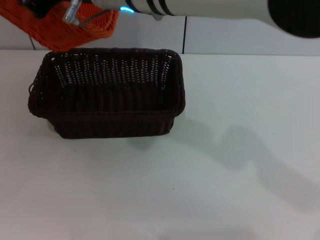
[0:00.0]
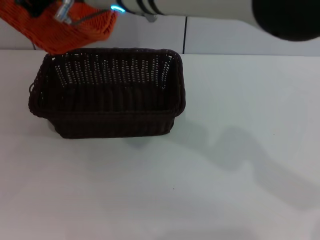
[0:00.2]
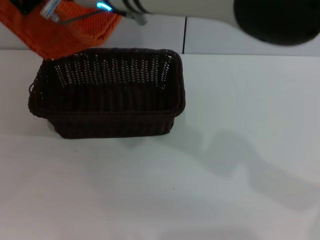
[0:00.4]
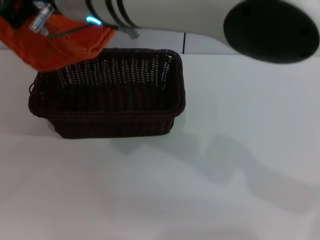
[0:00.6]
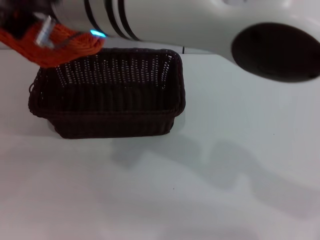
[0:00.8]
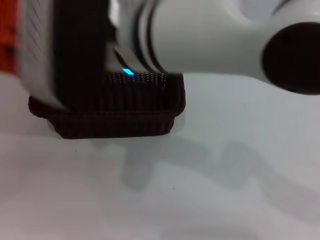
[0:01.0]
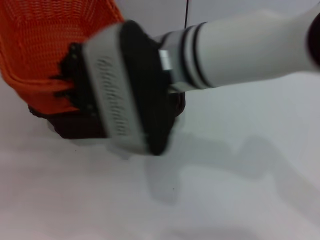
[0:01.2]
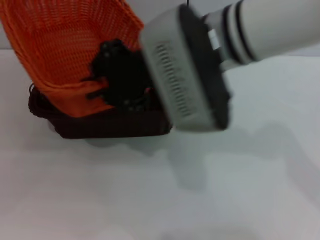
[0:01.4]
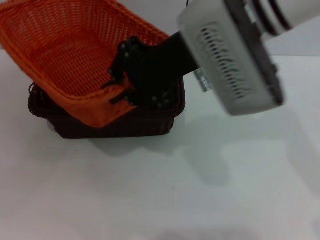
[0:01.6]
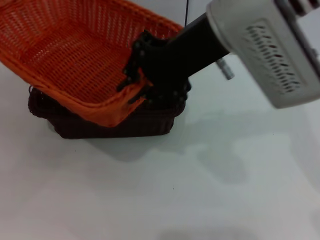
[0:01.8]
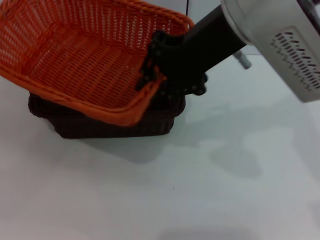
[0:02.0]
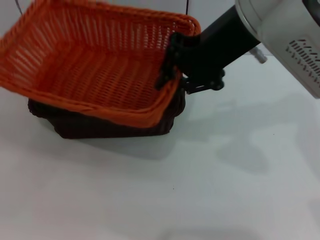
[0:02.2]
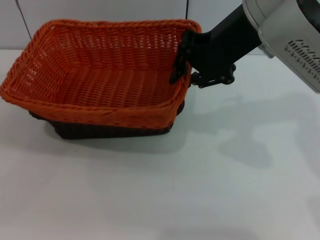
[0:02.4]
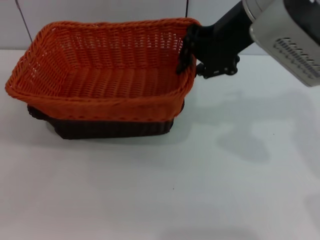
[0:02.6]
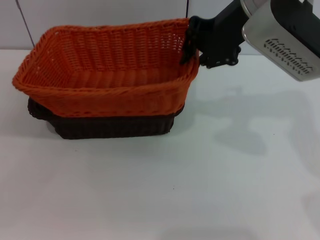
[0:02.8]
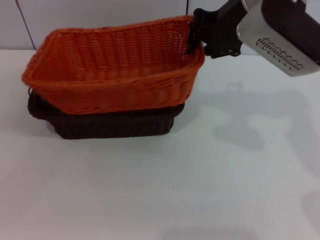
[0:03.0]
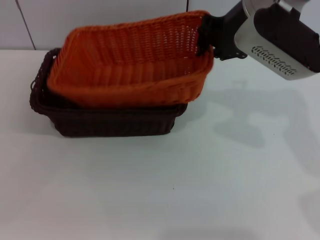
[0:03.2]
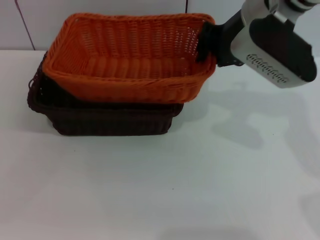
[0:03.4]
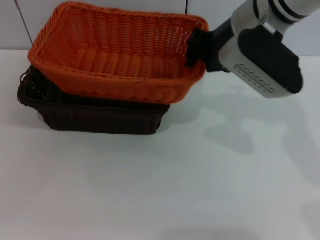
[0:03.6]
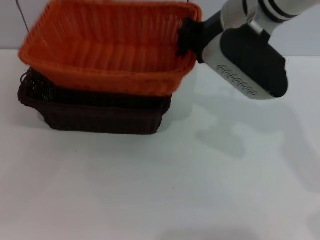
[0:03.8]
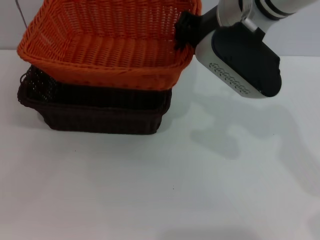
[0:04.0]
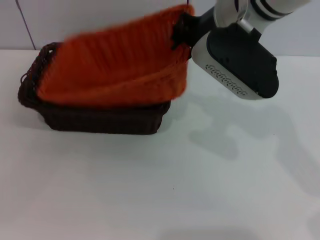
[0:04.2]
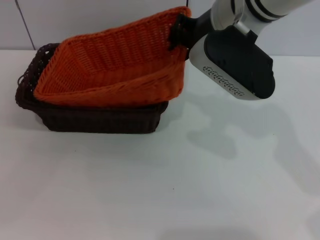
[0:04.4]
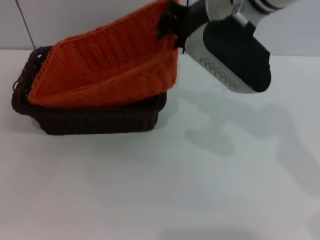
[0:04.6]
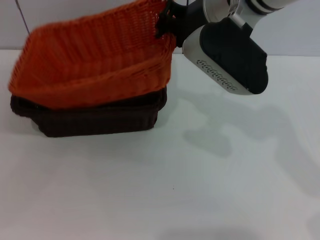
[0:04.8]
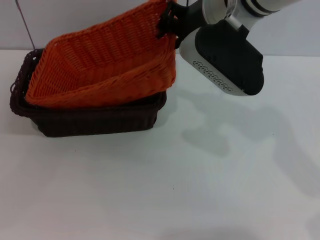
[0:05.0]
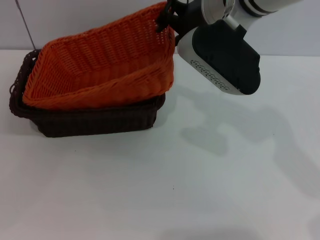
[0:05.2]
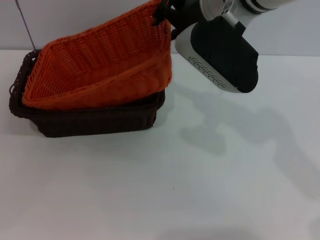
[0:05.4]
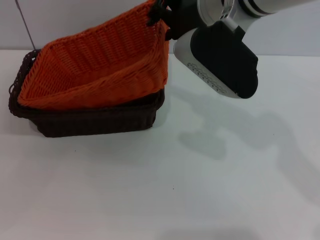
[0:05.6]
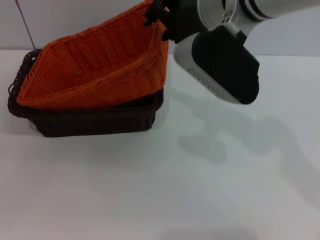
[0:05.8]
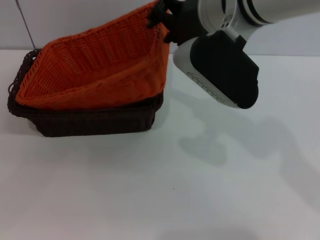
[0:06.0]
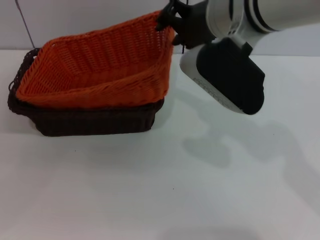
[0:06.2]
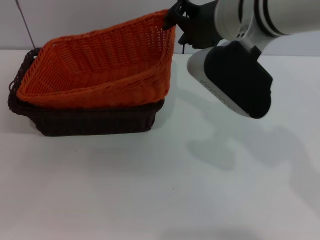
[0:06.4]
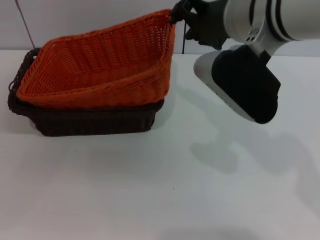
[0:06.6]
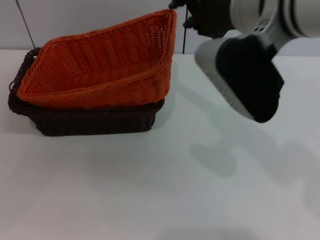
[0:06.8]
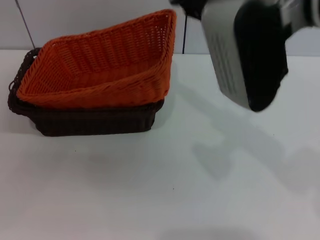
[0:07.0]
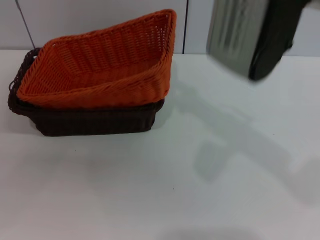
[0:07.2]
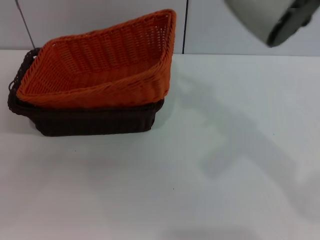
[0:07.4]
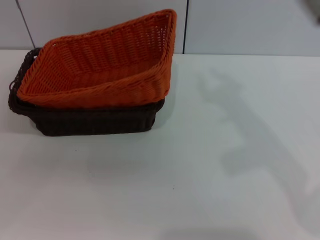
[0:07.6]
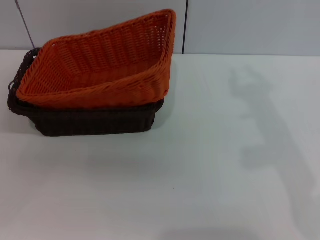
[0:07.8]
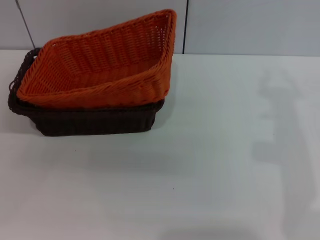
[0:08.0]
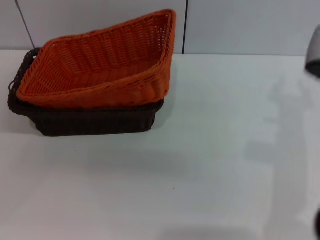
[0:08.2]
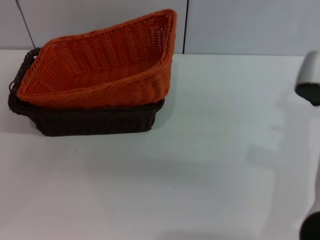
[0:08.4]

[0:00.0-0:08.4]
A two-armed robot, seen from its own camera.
Step, 0:00.0 to 0:06.2: Place the light basket on the dark basket with the right gripper.
0:00.0 to 0:01.4: The right gripper goes some 5 cm to the right.
0:01.4 to 0:02.8: The left gripper ends up roughly 5 cm from where it was. The right gripper shifts about 10 cm to the right and forward.
0:02.8 to 0:04.2: The grippers stay close to where they were, moving slightly.
0:04.2 to 0:05.6: The right gripper opens its fingers.
0:05.6 to 0:07.0: The right gripper shifts roughly 5 cm backward.
0:07.0 to 0:08.4: The right gripper shifts about 20 cm downward and to the right.
